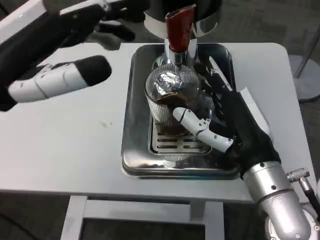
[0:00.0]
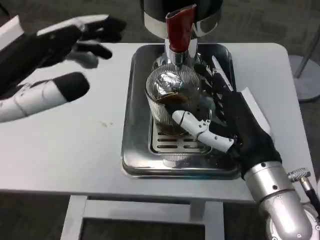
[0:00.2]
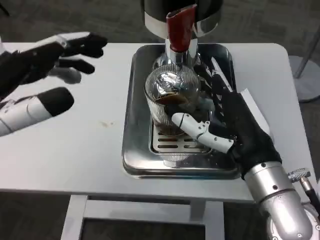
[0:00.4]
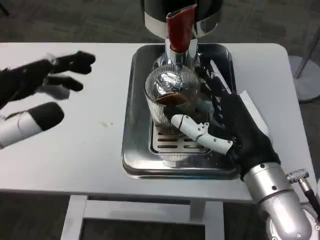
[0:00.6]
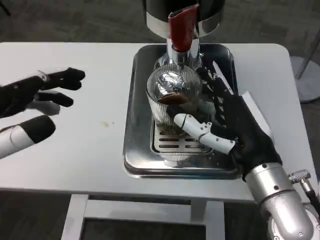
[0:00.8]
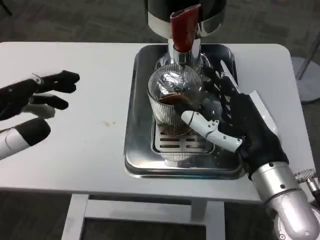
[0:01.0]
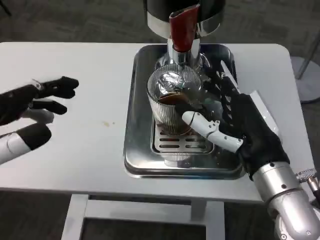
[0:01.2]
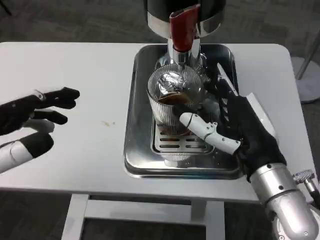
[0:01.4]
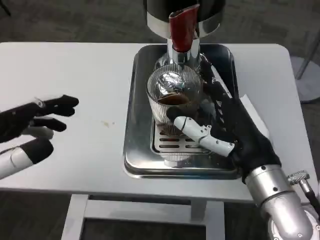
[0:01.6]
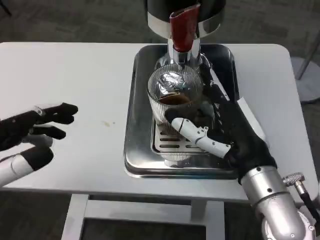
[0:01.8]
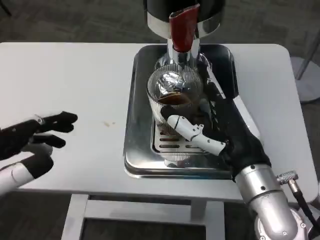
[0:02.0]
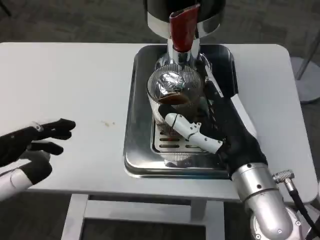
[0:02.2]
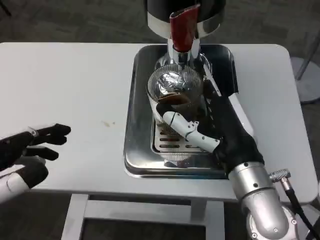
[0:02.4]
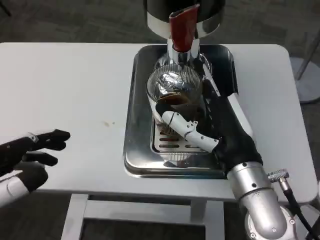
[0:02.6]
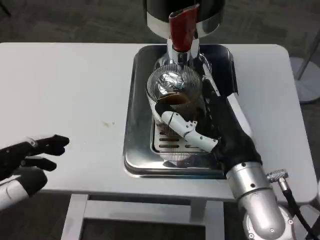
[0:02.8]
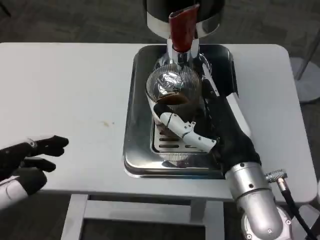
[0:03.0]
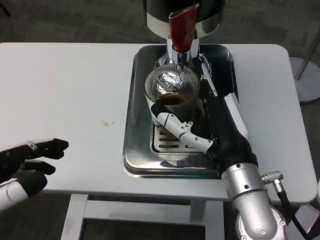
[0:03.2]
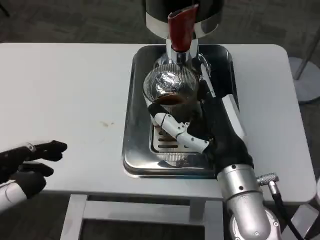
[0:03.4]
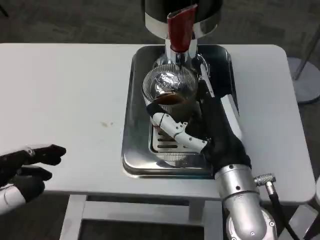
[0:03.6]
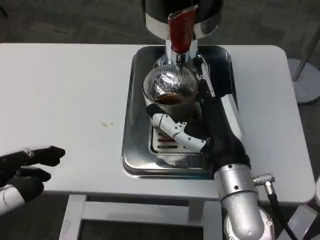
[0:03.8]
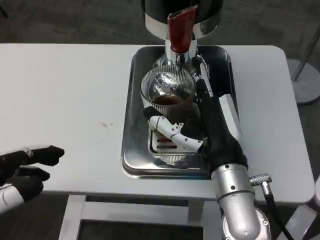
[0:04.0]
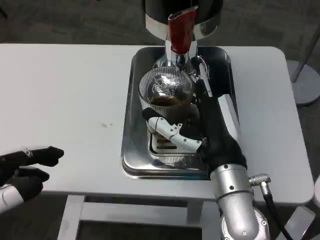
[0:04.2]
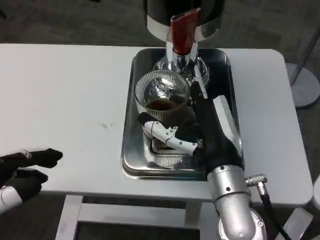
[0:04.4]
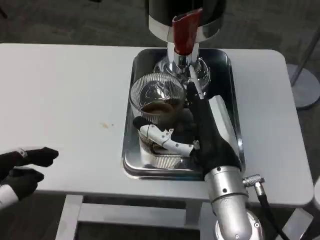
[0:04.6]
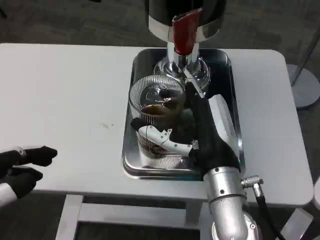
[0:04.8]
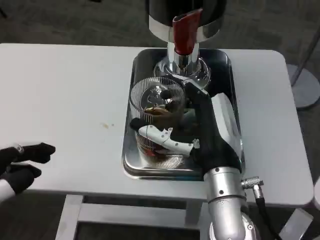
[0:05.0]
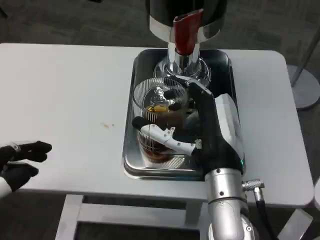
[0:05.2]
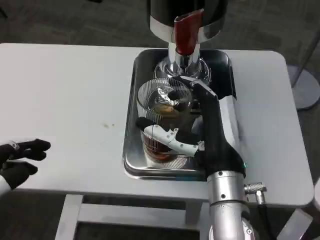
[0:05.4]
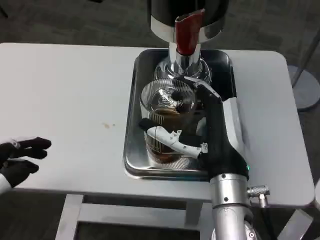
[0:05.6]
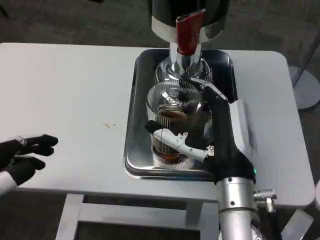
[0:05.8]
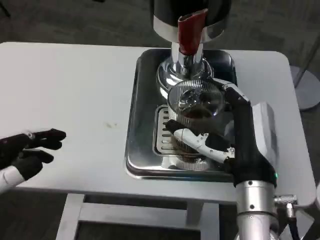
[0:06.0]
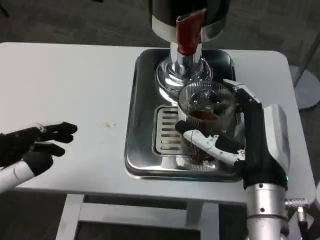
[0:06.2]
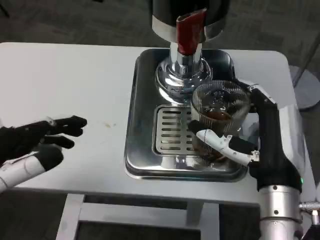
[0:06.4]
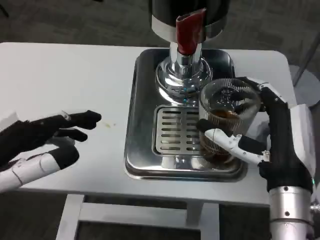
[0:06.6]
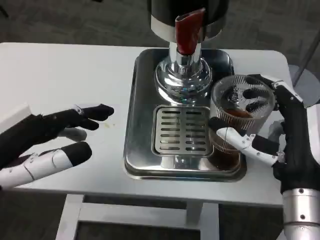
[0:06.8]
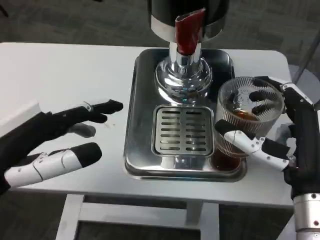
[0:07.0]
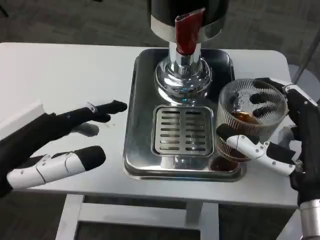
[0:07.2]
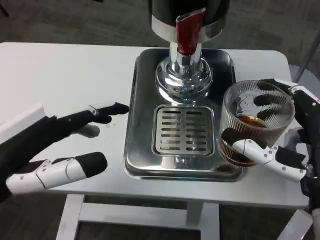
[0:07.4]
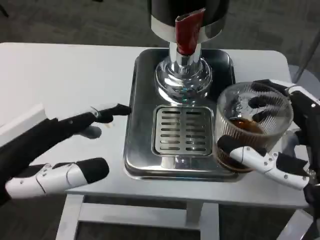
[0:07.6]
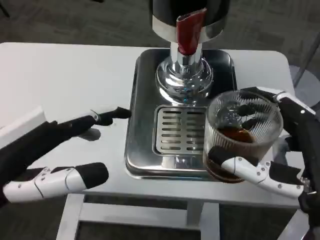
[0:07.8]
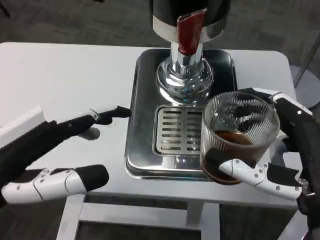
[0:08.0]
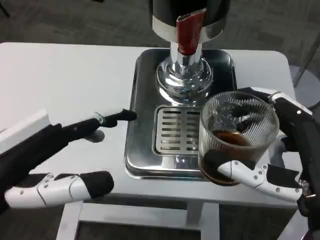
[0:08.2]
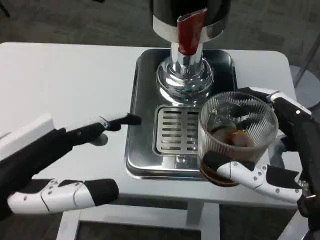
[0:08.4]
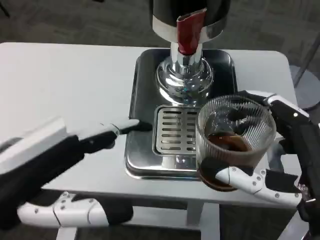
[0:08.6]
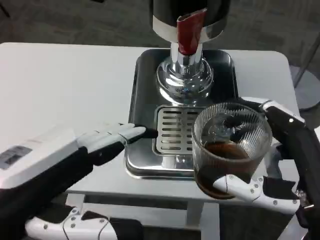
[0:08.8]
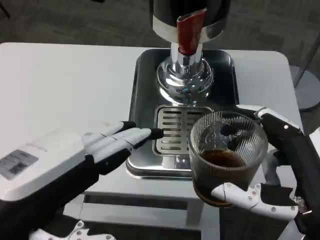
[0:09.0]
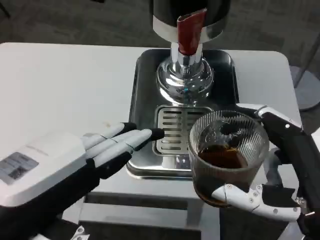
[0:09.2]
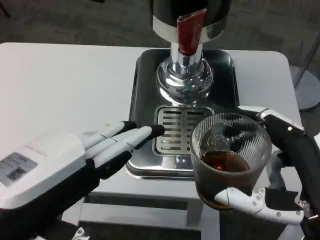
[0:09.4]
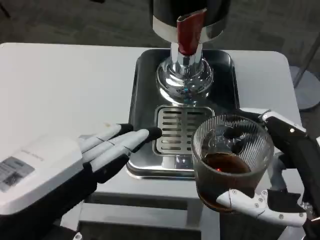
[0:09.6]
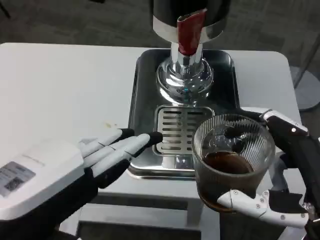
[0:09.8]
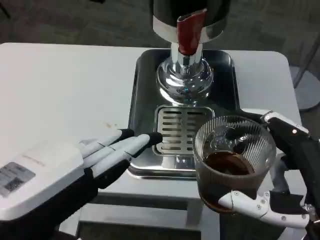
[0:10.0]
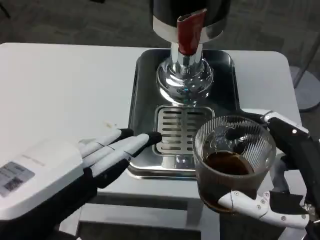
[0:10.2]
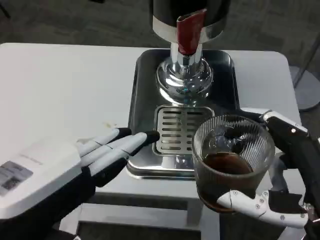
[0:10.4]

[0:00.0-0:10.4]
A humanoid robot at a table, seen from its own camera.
Task of the whole recording: Grasp the cup under the faucet to collect the drink, then remove the cup.
0:00.0 to 0:01.4: The left hand travels downward and backward by about 10 cm.
0:06.0 to 0:07.4: The right hand goes approximately 10 cm to the right and backward. Meanwhile the left hand changes place by roughly 5 cm.
0:07.4 to 0:09.0: The left hand moves roughly 5 cm.
0:09.0 to 0:10.4: The hands stay close to where they were, moving slightly.
